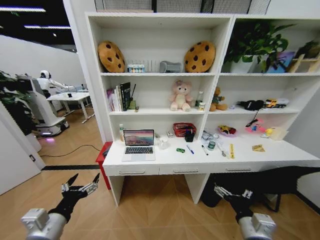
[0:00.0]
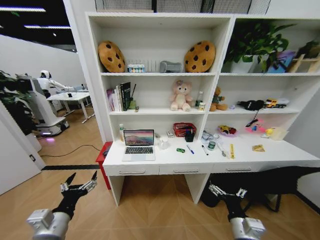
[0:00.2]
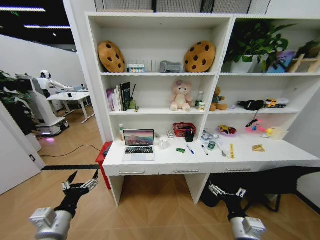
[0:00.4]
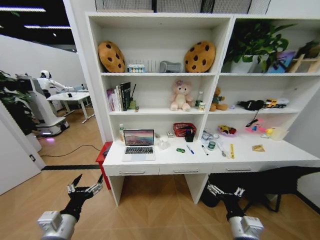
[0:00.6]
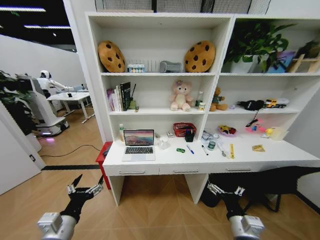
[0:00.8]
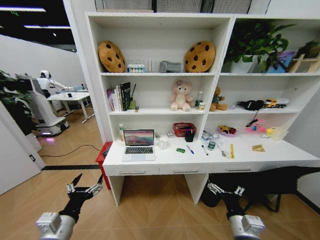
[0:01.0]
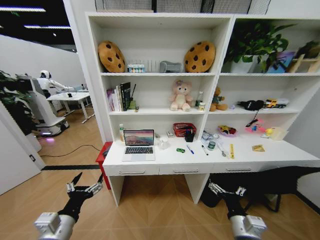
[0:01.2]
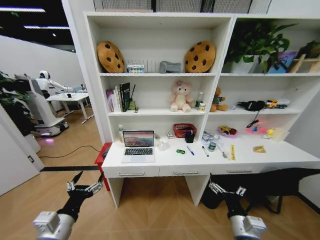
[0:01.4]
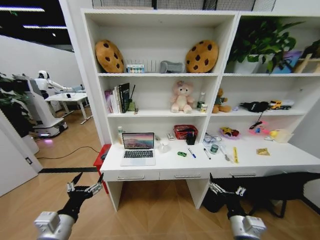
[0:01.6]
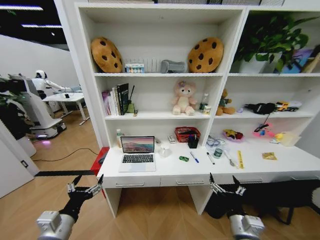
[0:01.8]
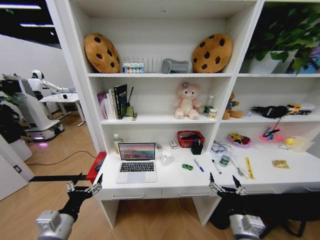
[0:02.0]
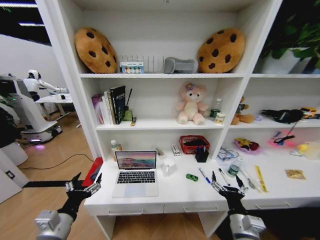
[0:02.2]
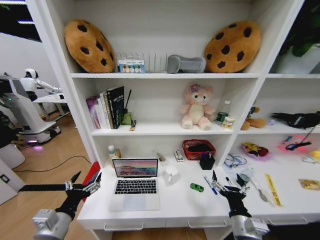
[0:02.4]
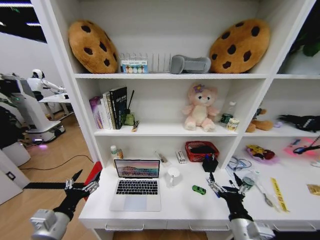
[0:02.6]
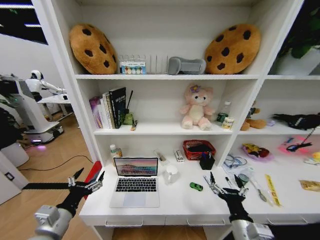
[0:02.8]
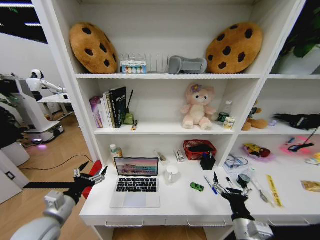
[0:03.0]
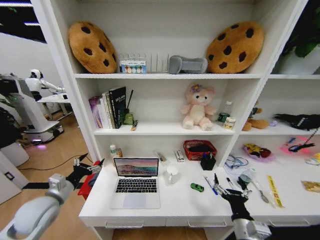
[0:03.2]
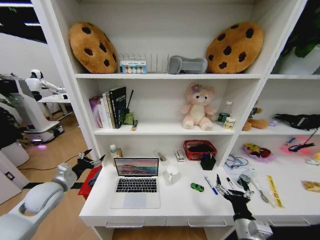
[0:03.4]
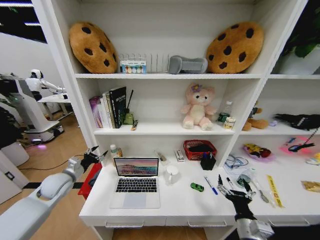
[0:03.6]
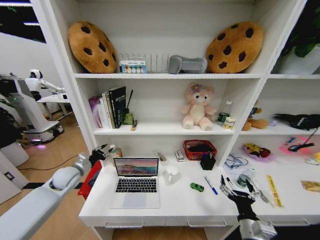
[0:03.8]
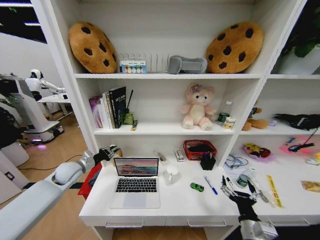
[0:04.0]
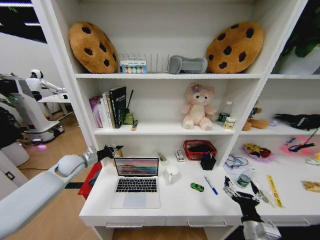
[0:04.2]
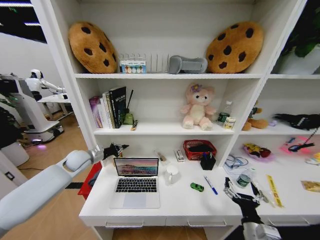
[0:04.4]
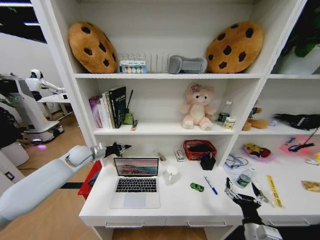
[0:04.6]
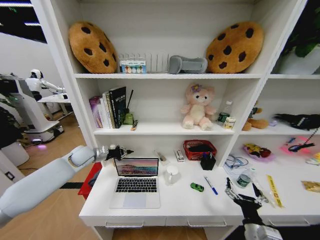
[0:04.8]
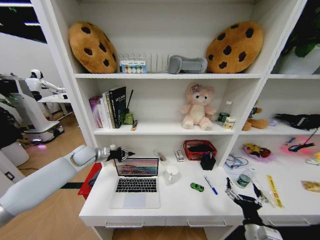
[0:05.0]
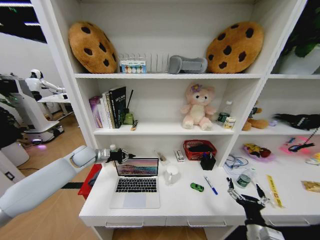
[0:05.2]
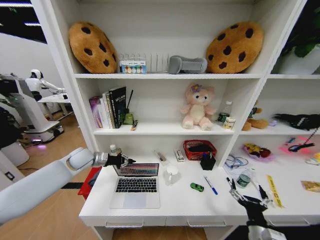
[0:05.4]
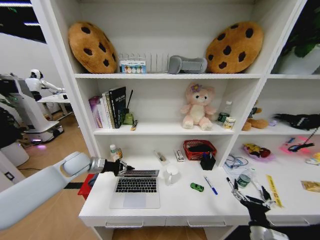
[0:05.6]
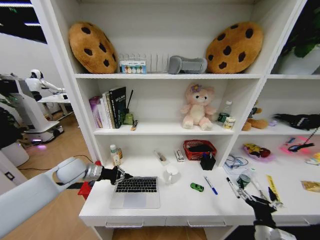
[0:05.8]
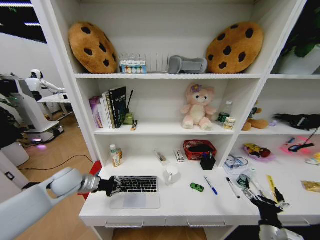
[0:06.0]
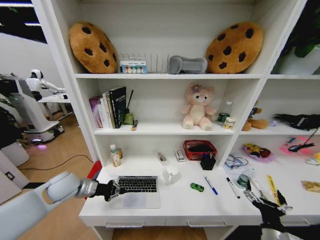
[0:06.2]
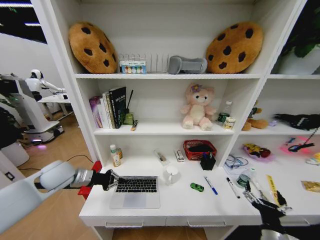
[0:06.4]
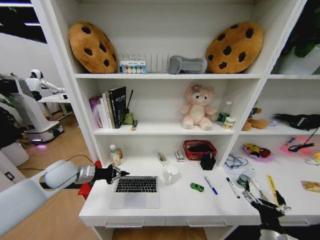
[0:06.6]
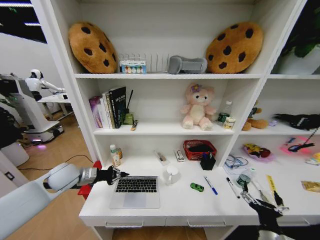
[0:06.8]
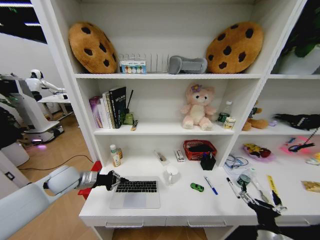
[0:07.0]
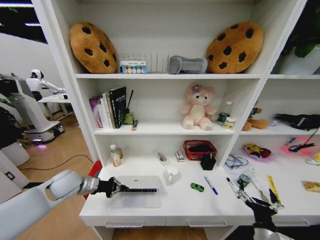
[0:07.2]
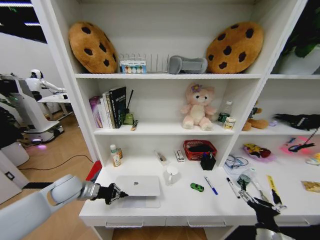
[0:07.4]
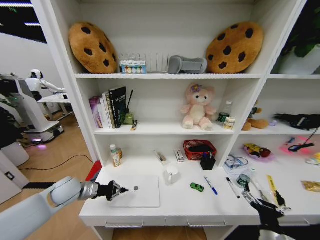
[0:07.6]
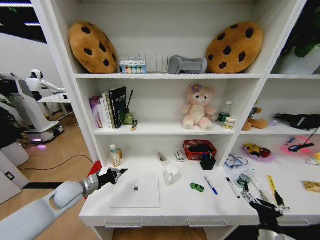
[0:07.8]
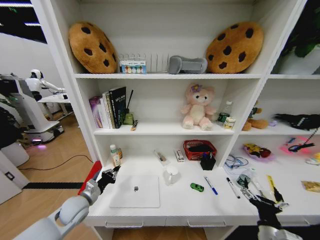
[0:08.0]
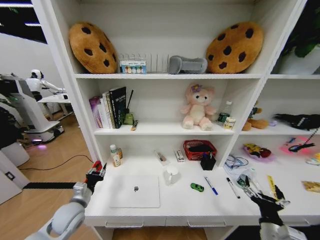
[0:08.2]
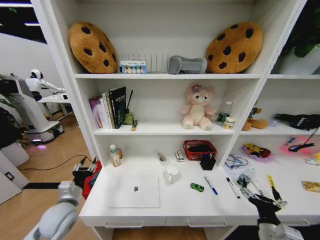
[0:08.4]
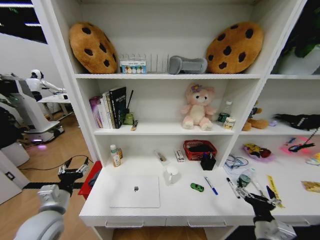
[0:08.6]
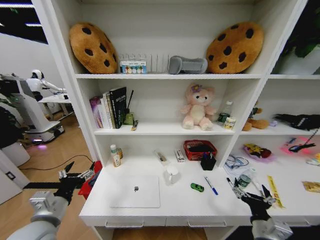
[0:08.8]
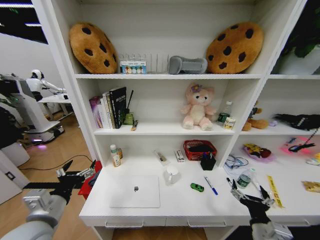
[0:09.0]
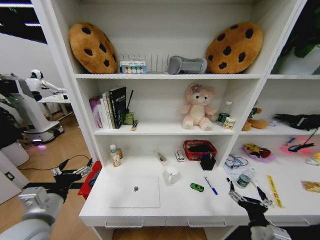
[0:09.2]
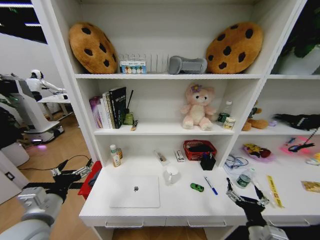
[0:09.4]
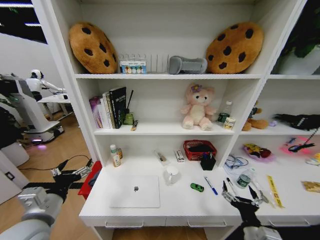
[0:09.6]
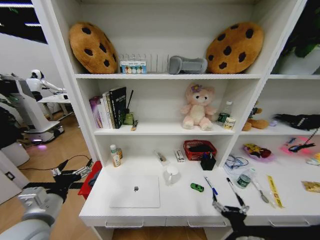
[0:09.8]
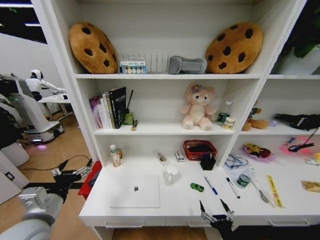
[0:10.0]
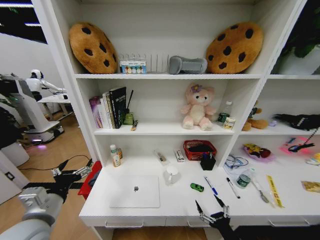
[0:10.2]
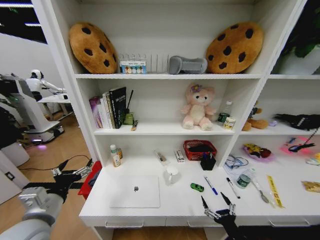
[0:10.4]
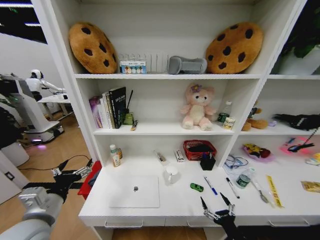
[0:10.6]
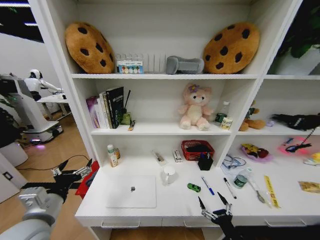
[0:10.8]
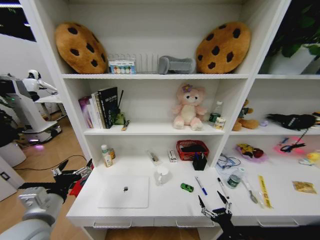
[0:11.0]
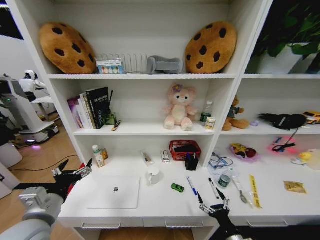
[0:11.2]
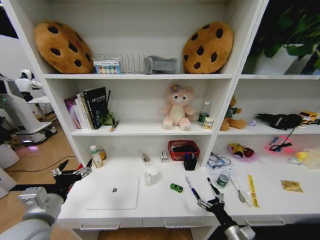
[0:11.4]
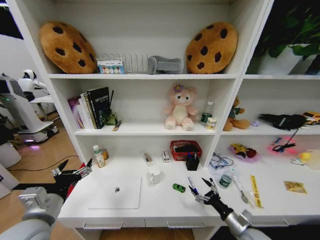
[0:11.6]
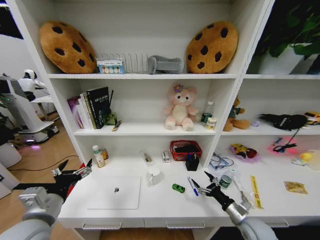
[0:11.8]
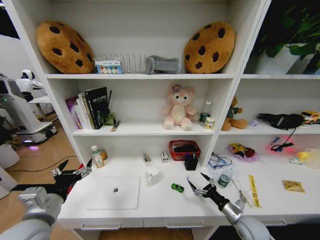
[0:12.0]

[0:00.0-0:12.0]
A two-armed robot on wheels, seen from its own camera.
Task of the whole recording: Organize the objects on the table.
0:01.6 to 0:03.0: The left gripper shifts by roughly 5 cm.
0:03.0 to 0:04.4: The left gripper shifts some 25 cm forward, and closes its fingers. The right gripper shifts by some 5 cm.
0:04.4 to 0:06.0: The left gripper shifts approximately 10 cm backward.
0:06.0 to 0:07.6: There are only small adjustments of the grippers.
0:07.6 to 0:09.0: The left gripper travels backward and upward by roughly 20 cm, and opens up.
0:09.0 to 0:10.4: The right gripper moves downward, some 10 cm.
0:10.4 to 0:12.0: The right gripper is displaced forward and to the right by some 15 cm.

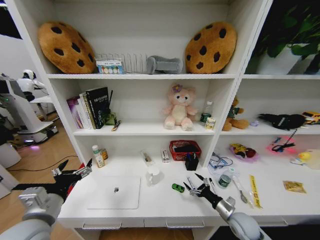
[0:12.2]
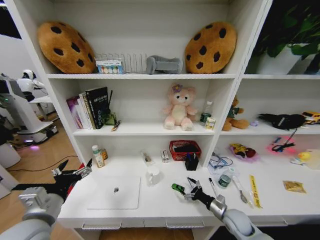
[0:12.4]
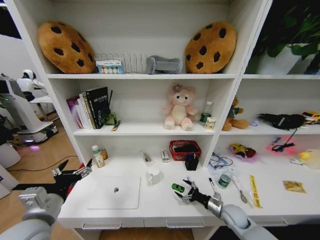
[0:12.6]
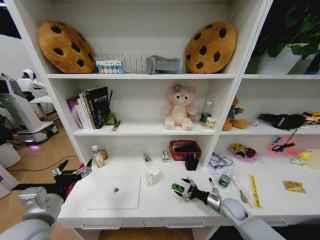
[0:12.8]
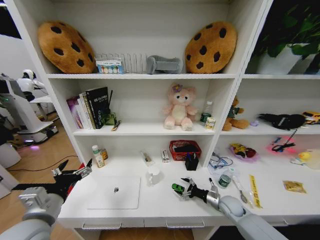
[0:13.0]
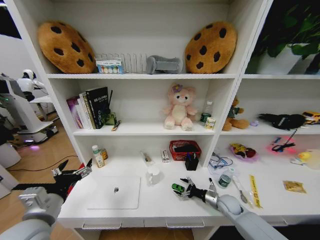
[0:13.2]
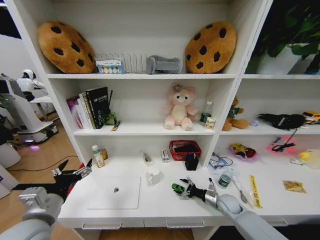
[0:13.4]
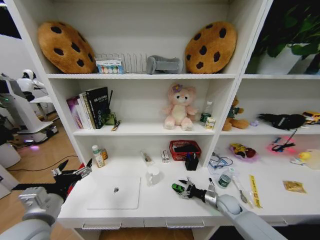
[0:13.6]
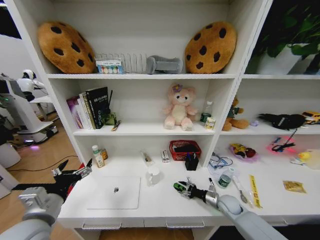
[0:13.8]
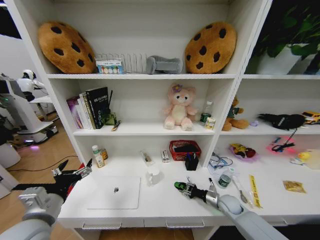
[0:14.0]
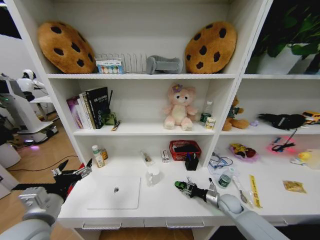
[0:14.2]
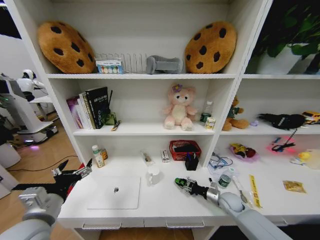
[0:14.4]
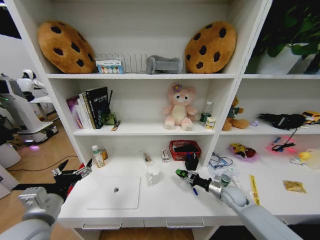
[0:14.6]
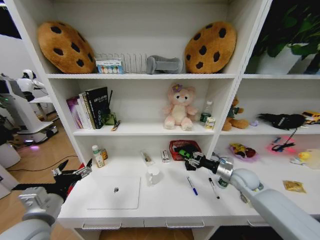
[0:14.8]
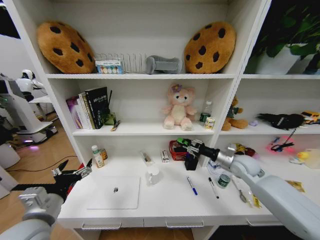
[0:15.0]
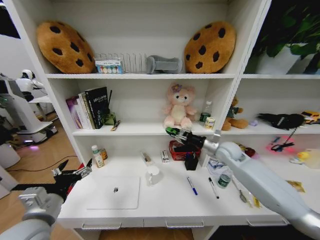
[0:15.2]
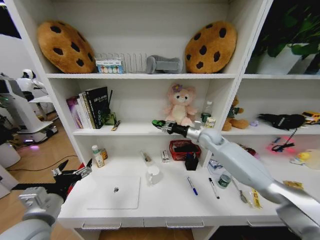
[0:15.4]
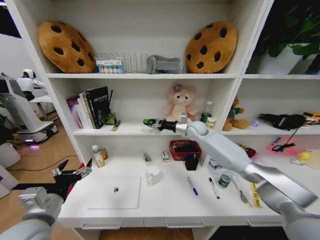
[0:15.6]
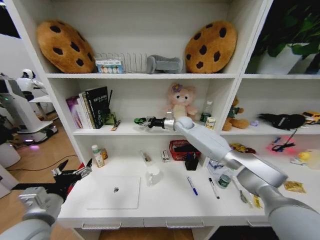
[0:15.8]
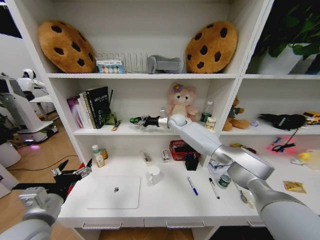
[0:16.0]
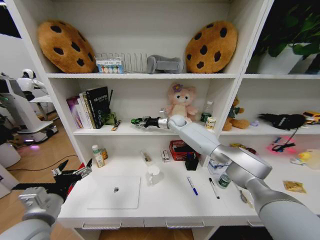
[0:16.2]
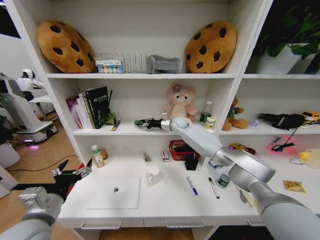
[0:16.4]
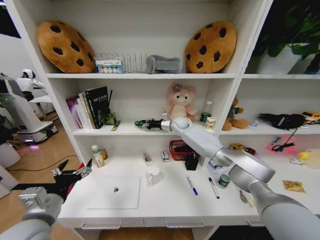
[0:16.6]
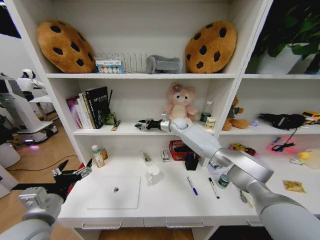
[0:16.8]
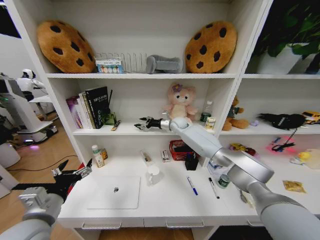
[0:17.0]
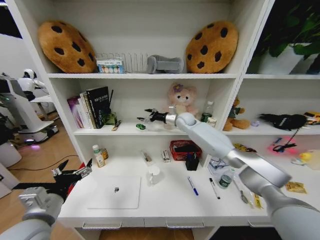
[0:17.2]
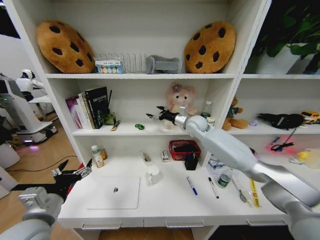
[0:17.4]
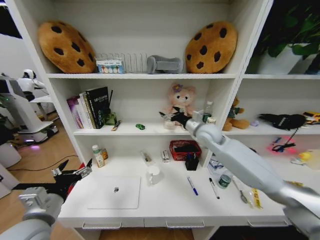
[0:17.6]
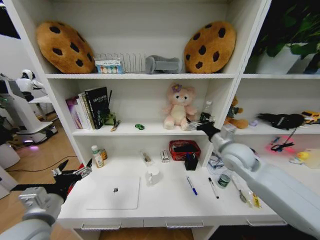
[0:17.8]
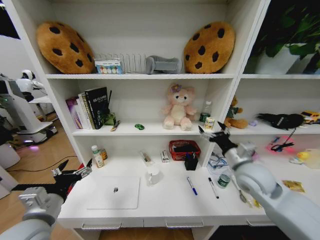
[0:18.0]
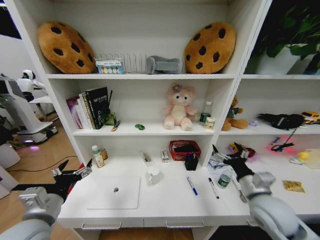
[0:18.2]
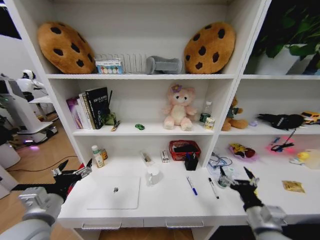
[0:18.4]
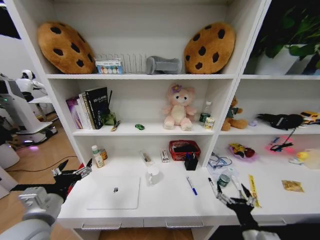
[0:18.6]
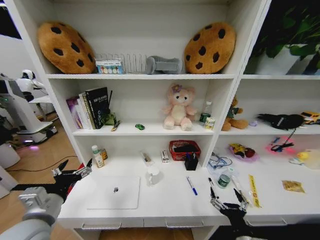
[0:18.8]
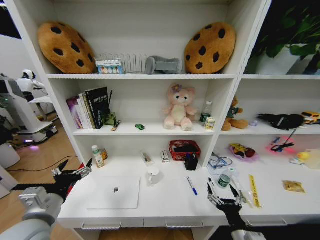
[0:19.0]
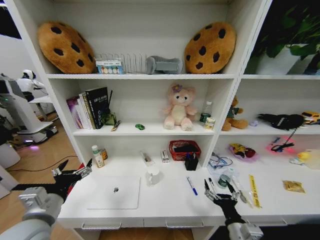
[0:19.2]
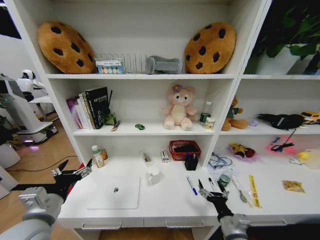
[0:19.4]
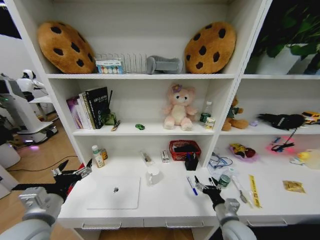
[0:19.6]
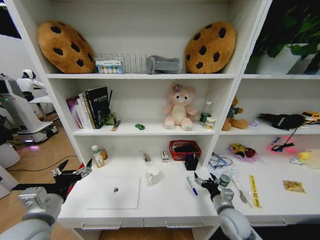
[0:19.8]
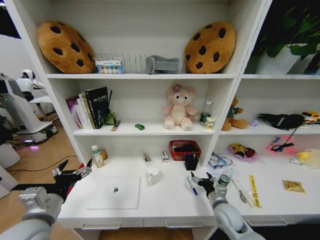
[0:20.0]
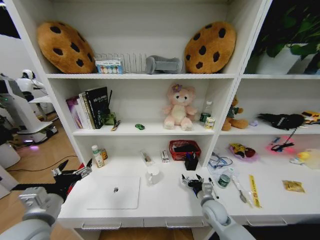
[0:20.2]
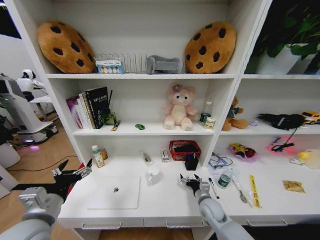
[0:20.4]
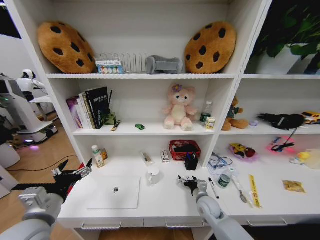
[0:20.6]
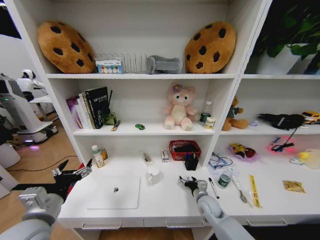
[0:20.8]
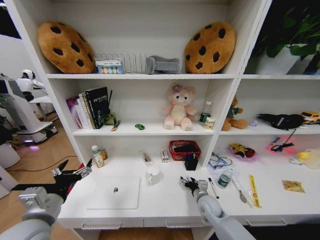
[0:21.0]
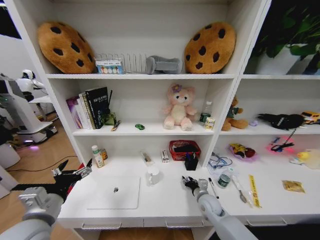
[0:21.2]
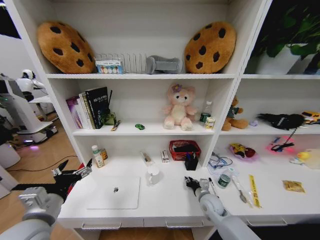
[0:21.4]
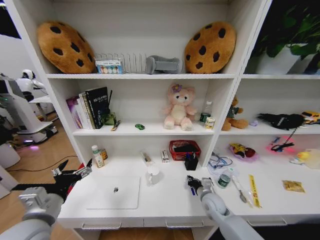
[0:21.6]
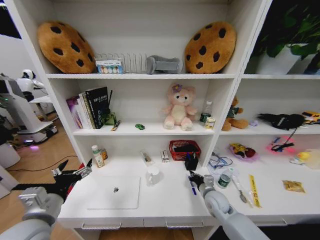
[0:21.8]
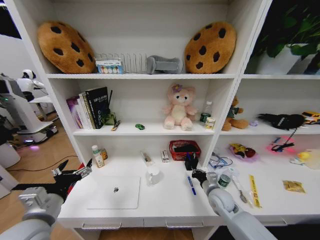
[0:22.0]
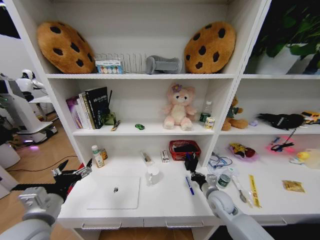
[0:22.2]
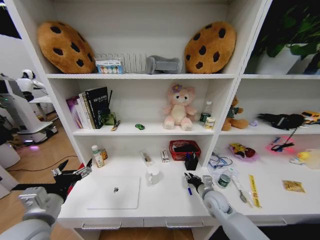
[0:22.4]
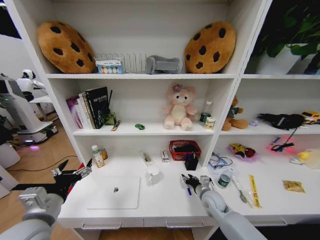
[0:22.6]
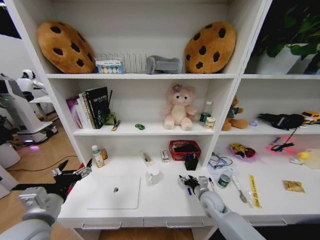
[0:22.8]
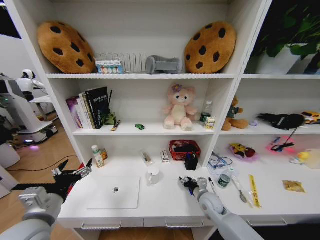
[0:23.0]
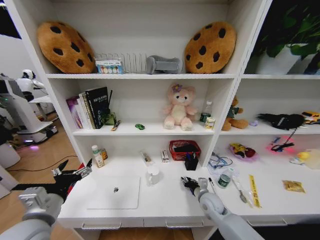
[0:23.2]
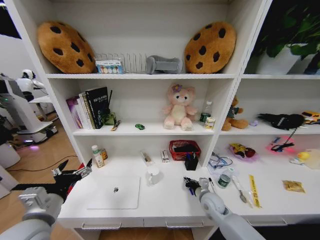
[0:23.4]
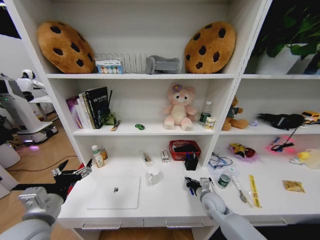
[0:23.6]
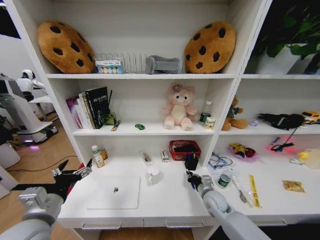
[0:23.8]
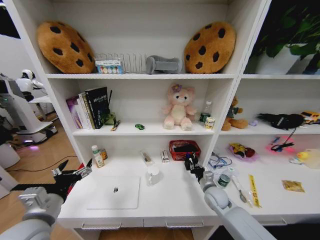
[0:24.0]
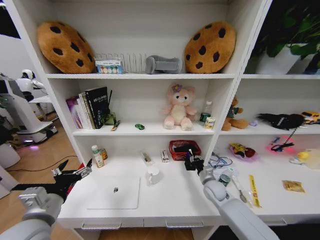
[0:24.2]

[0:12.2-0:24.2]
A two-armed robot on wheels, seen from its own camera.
Task of the whole recording: Organize the objects on the table.
0:12.2 to 0:13.8: The right gripper goes approximately 10 cm forward, and closes its fingers.
0:13.8 to 0:15.2: The right gripper travels upward and forward by some 30 cm.
0:15.2 to 0:16.6: The right gripper travels forward and to the left by some 30 cm.
0:16.6 to 0:18.2: The right gripper is displaced backward and to the right by about 50 cm, and opens.
0:18.2 to 0:19.8: The right gripper shifts approximately 15 cm downward.
0:19.8 to 0:21.2: The right gripper heads forward and downward, covering roughly 10 cm, and closes up.
0:21.2 to 0:22.6: The right gripper closes, then opens again.
0:22.6 to 0:24.2: The right gripper changes place by about 5 cm.
